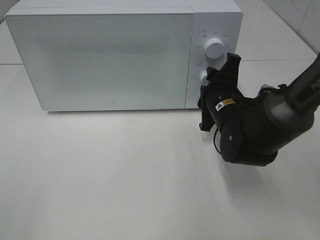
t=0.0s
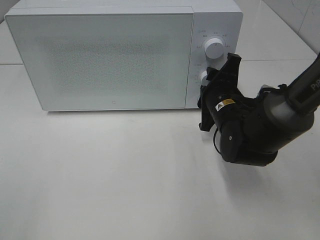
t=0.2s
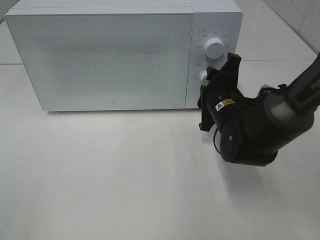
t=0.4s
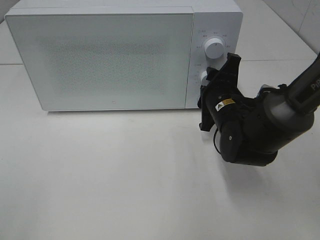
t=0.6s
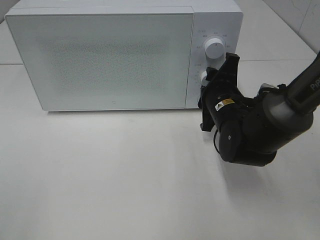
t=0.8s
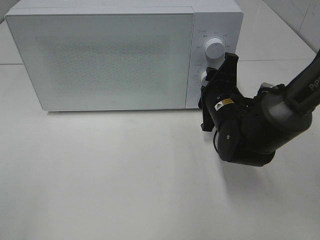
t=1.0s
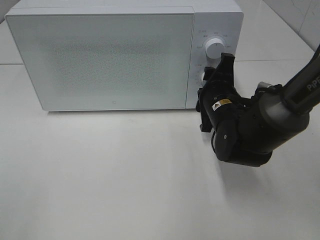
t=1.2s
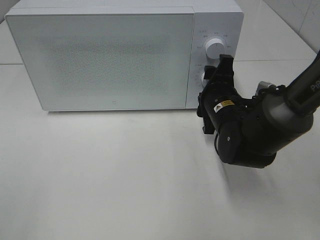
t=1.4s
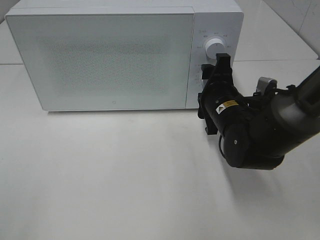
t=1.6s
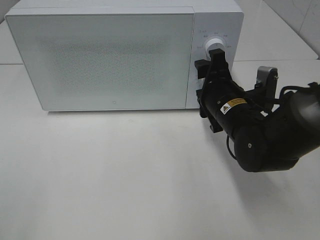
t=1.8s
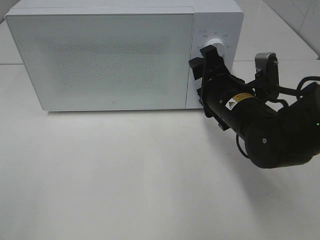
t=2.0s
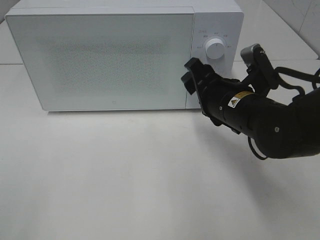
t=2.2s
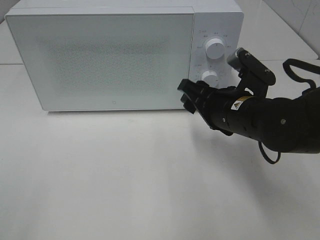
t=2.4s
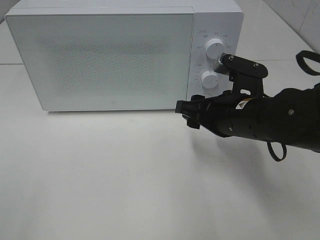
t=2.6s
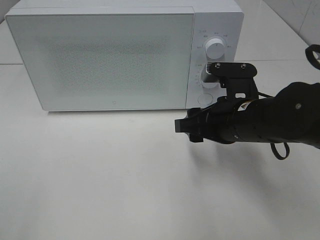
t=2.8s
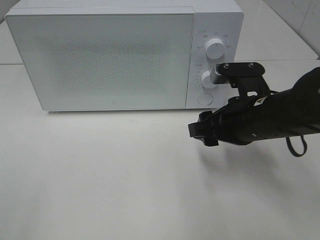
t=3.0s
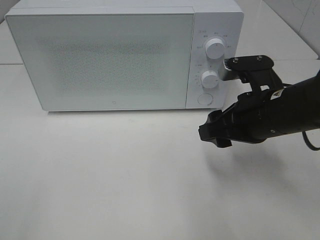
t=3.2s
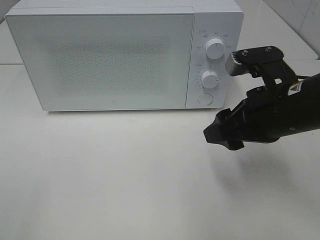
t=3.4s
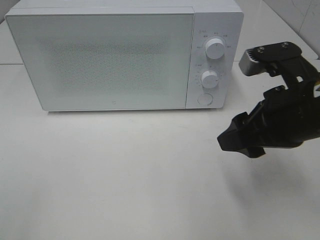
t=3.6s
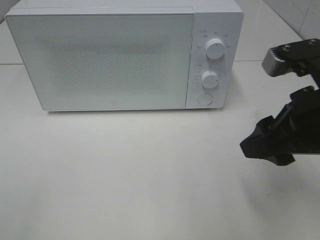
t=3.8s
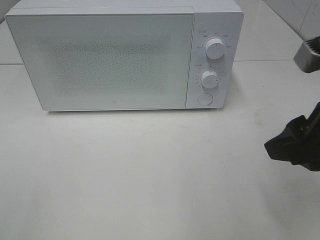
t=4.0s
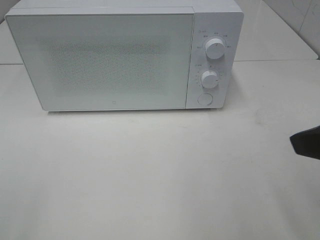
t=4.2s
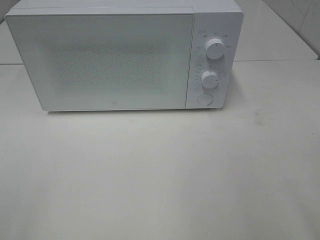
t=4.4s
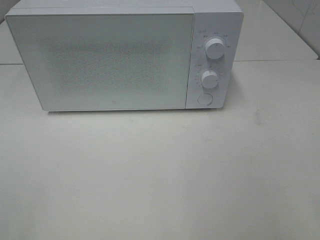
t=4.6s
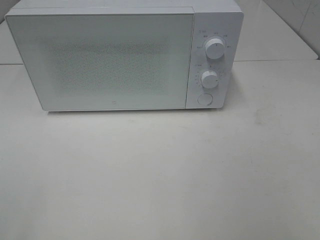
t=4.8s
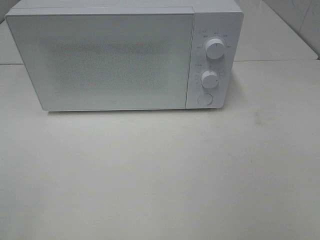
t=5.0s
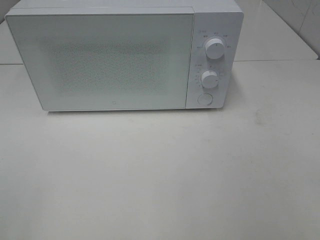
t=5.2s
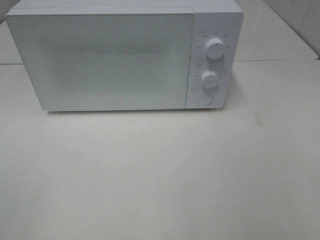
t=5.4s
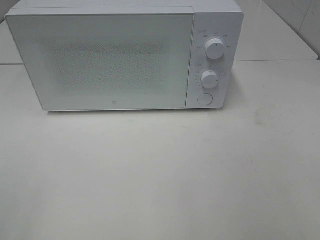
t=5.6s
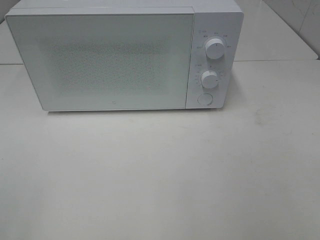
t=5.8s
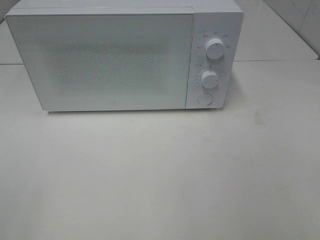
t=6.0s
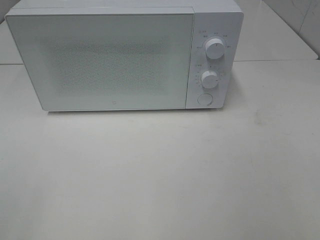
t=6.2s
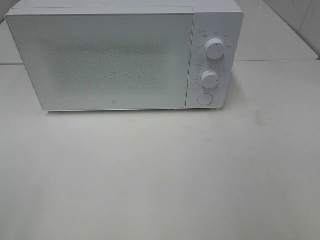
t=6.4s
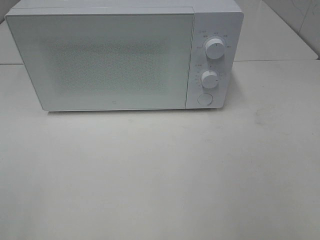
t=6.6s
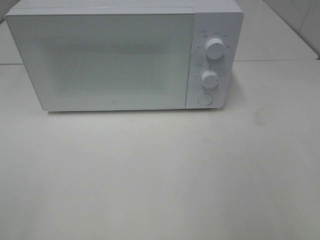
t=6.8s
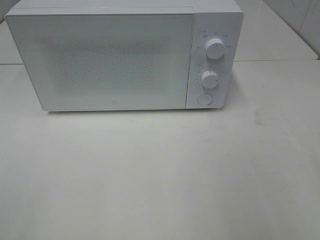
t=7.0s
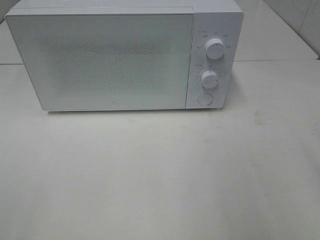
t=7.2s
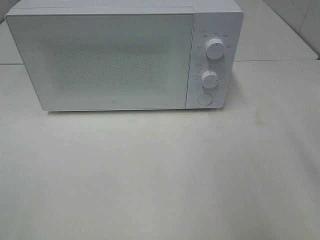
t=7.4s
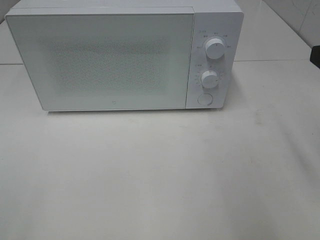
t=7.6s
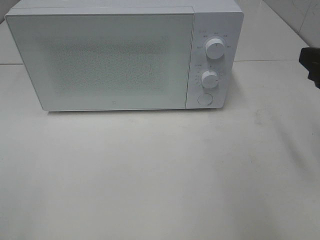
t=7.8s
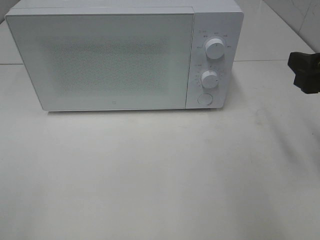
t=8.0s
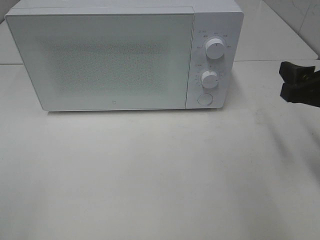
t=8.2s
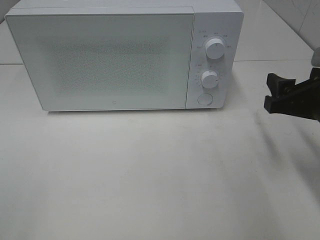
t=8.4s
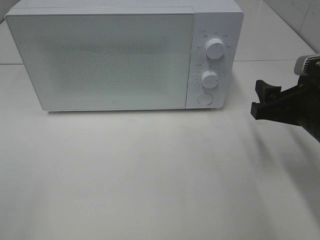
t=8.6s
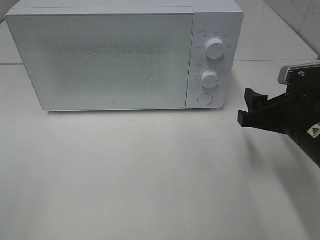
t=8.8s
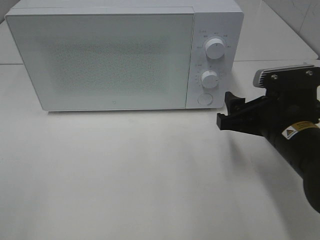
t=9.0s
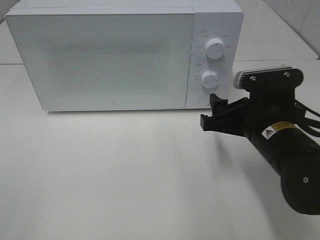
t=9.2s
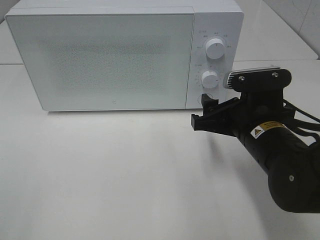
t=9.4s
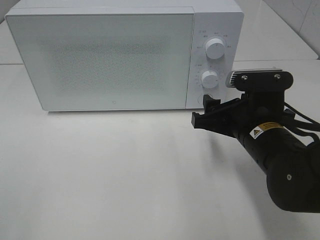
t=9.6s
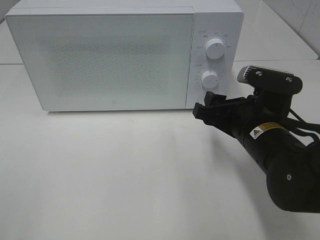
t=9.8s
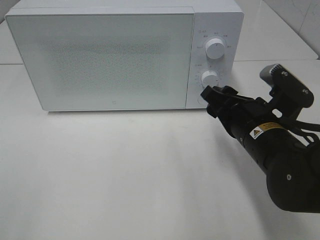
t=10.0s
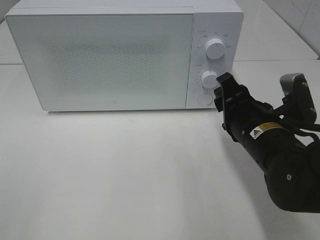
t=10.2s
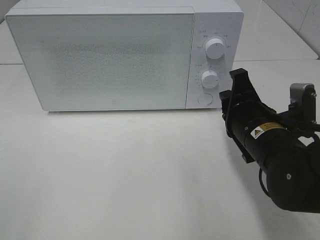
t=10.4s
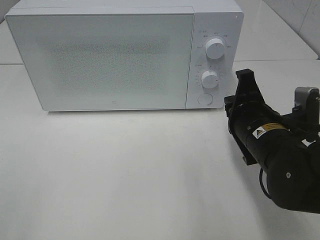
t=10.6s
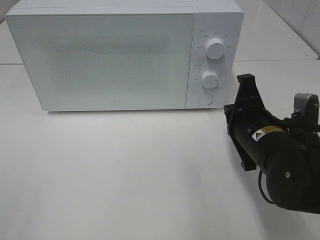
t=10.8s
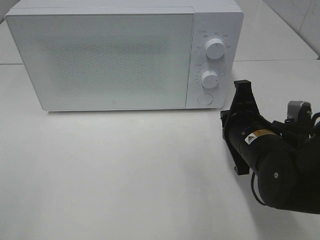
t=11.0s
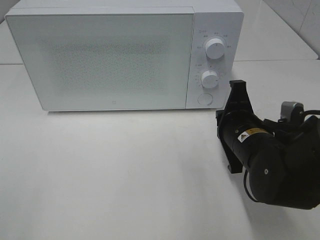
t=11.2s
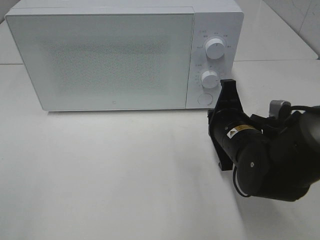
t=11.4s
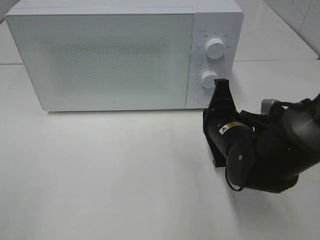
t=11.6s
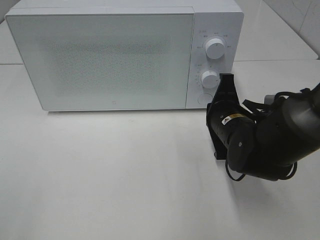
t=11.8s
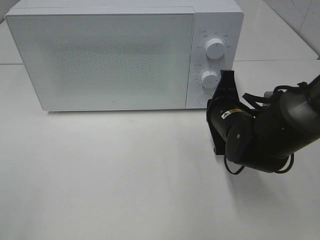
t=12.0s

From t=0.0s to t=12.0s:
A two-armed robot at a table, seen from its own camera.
Task of the whole recording: Heat the burger.
From t=0.0s to t=1.6s: The grippers make only small movements.
From t=1.6s to t=3.0s: The right gripper heads backward, covering approximately 5 cm.
From t=3.0s to t=4.4s: The right gripper heads backward, upward and to the right, covering roughly 25 cm.
From t=7.6s to t=9.0s: The right gripper shifts some 15 cm downward and to the left.
From t=9.0s to t=10.4s: The right gripper closes its fingers.
From t=10.4s to t=12.0s: The right gripper shifts approximately 5 cm forward.

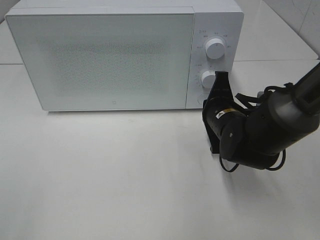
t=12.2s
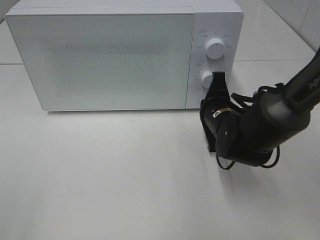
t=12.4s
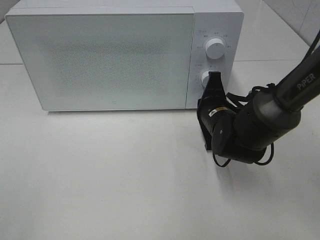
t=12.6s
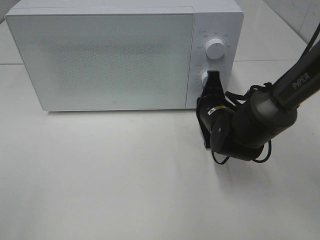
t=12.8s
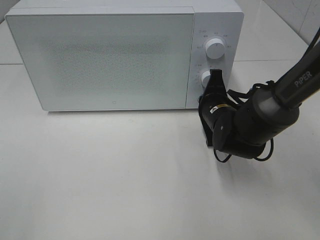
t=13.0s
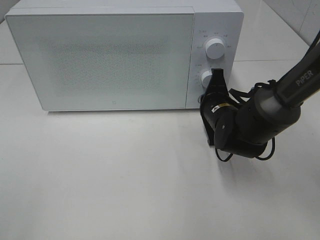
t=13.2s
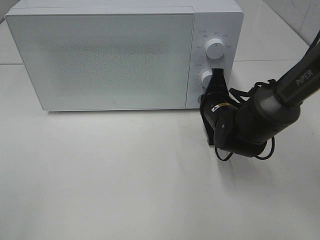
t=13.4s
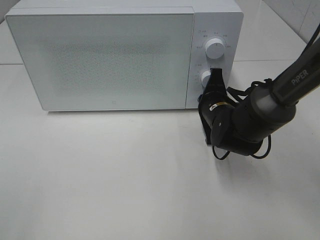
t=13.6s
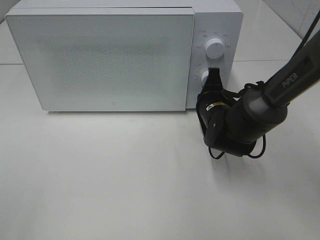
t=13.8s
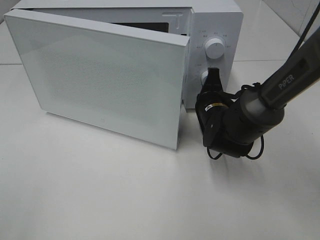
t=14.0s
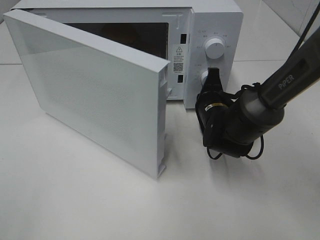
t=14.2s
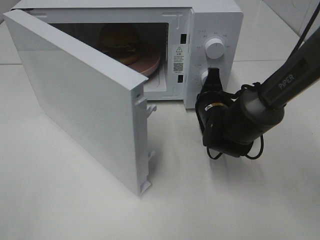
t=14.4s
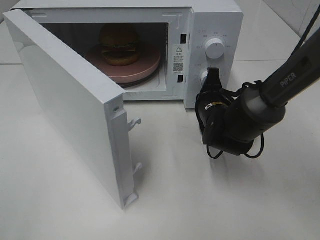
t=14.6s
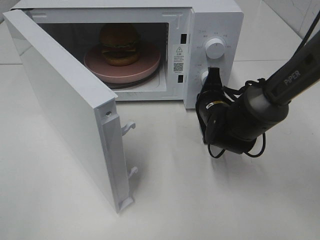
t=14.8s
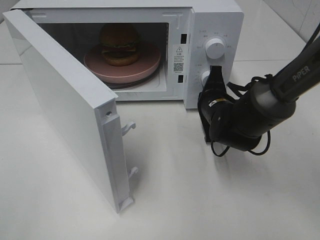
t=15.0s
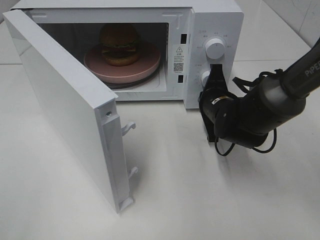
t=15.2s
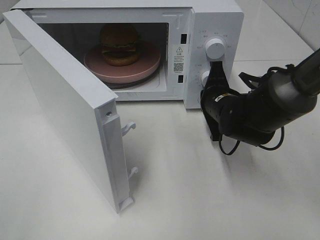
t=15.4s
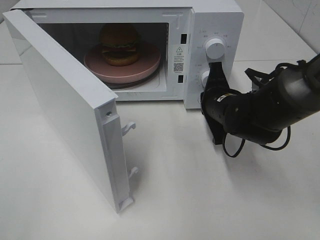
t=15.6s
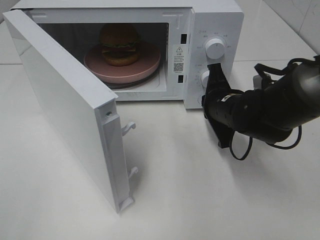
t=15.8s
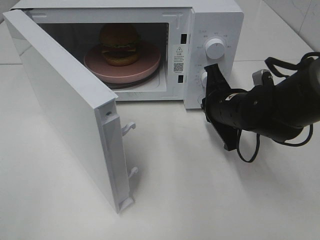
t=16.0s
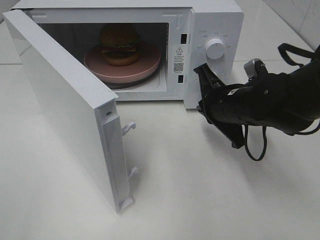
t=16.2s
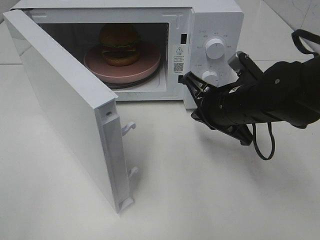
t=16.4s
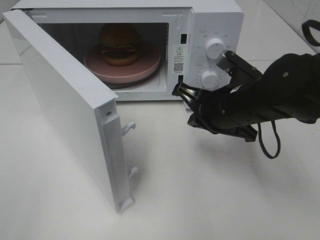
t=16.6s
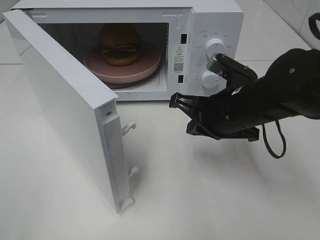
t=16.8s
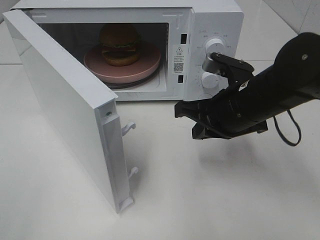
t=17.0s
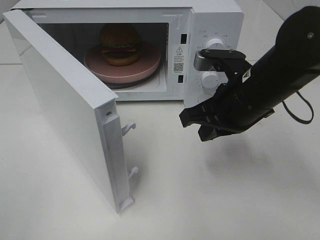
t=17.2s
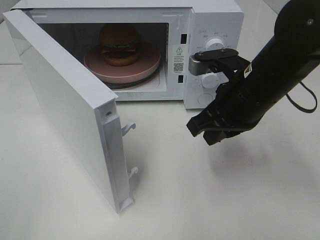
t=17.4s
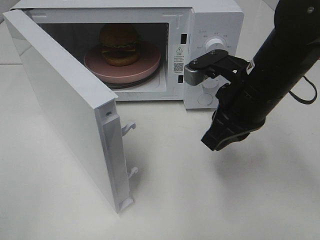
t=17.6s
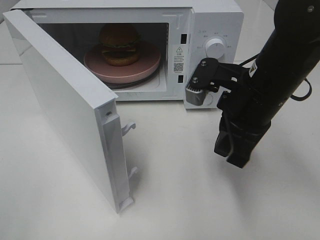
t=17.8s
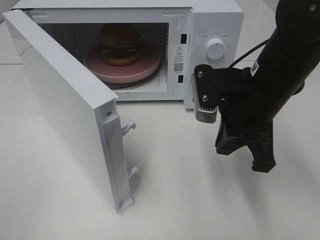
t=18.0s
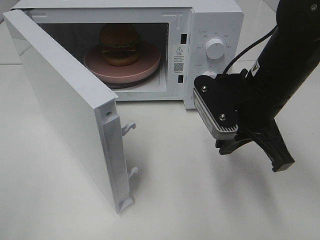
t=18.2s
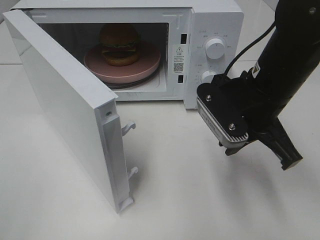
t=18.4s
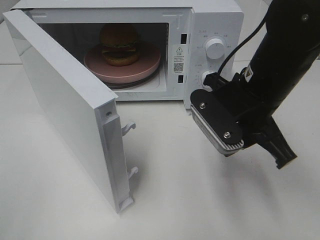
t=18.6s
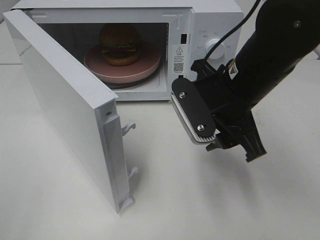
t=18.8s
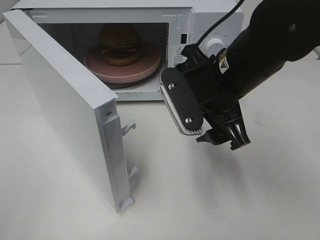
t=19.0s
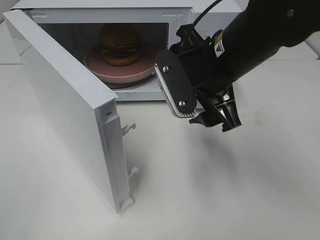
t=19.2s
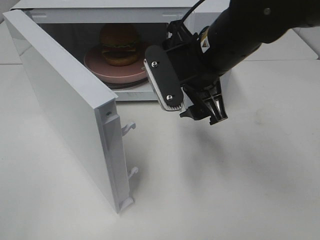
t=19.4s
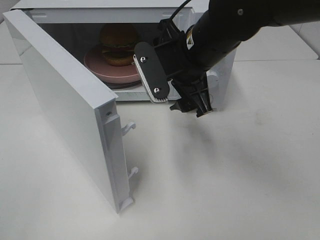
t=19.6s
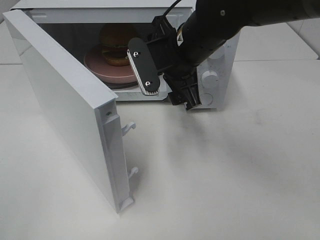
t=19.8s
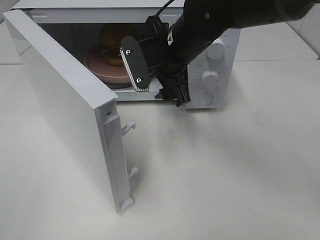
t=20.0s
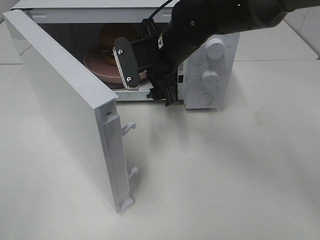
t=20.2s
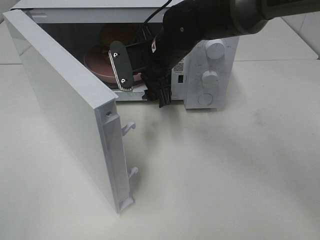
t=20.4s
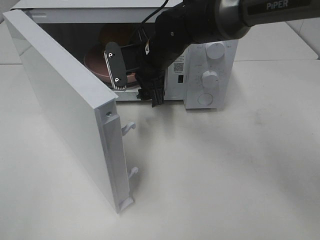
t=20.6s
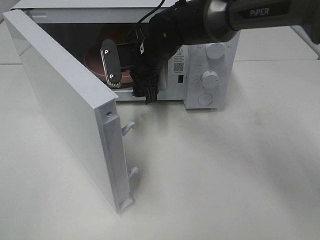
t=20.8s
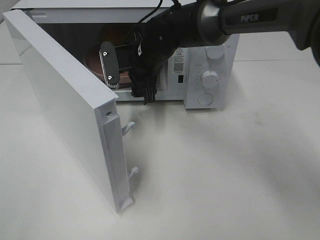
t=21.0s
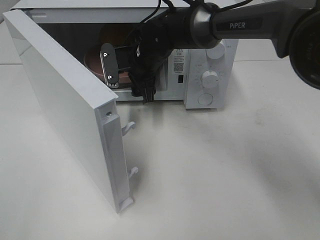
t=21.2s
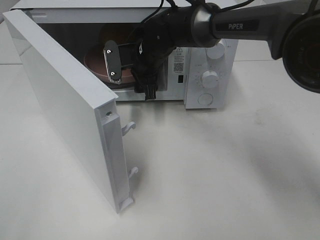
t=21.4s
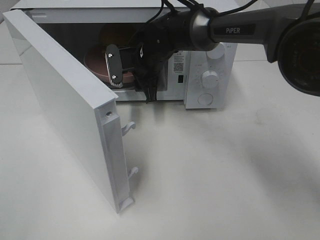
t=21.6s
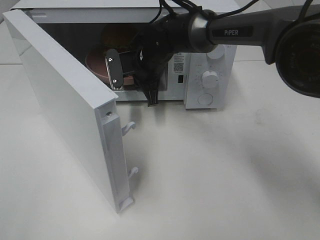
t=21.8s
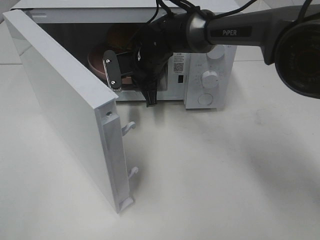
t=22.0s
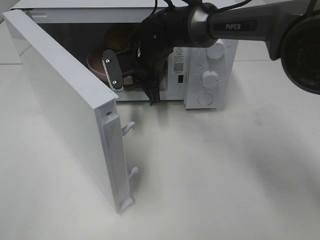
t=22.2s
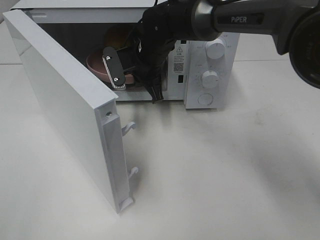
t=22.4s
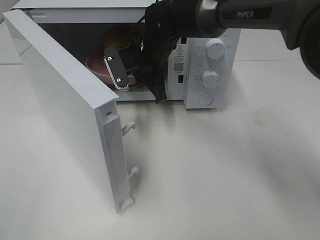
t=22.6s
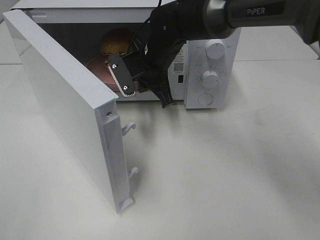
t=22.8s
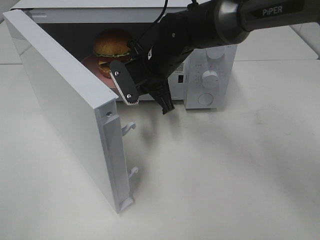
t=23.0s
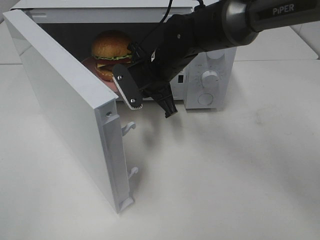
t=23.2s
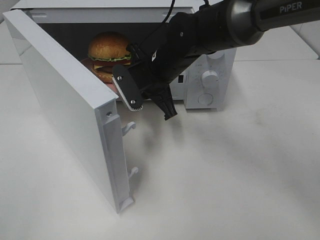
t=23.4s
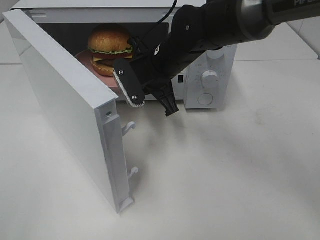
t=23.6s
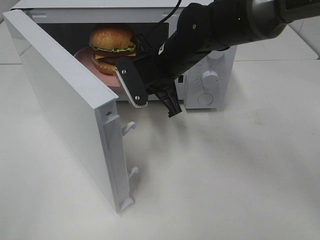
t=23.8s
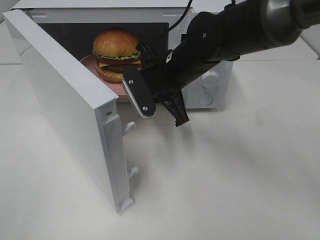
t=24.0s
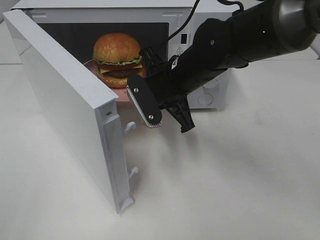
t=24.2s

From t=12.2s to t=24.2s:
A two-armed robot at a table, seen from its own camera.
Task of the whole recording: Heat the burger.
Step, from t=12.2s to t=15.4s: Right hand: press the switch.
Step, from t=15.6s to t=22.0s: Right hand: grab the plate with the hamburger.
From t=12.2s to t=13.8s: The grippers move only a little.
From t=15.2s to t=16.6s: The right gripper travels backward and upward by roughly 10 cm.
From t=16.6s to t=18.2s: The right gripper travels upward by about 5 cm.
From t=18.2s to t=19.8s: The right gripper moves to the left and forward, approximately 10 cm, and opens up.
From t=19.8s to t=21.2s: The right gripper moves forward, downward and to the left, some 15 cm.
From t=21.2s to t=22.6s: The right gripper closes.
From t=22.6s to t=24.2s: The right gripper moves backward and to the right, roughly 10 cm.
